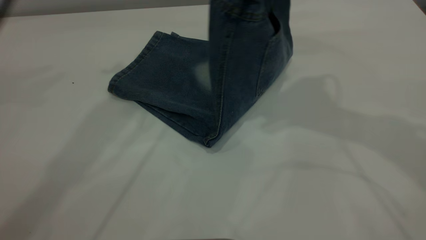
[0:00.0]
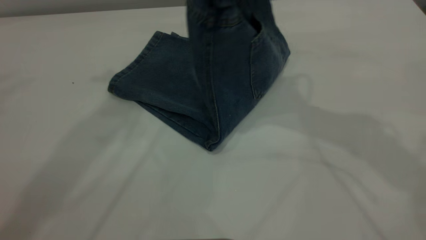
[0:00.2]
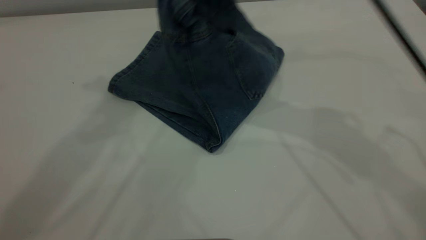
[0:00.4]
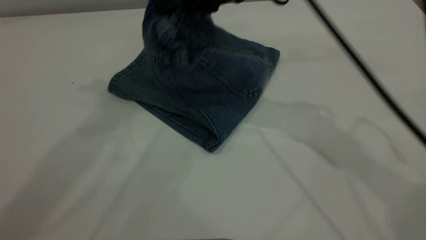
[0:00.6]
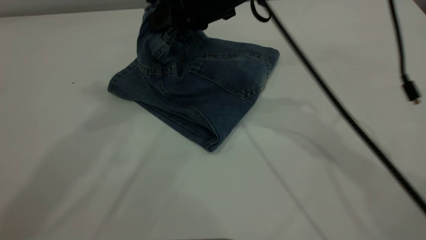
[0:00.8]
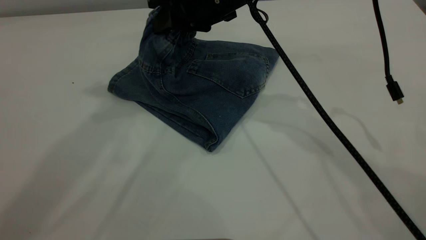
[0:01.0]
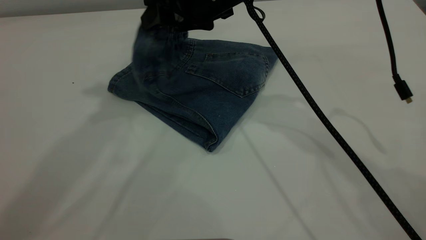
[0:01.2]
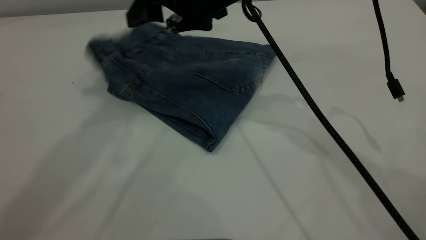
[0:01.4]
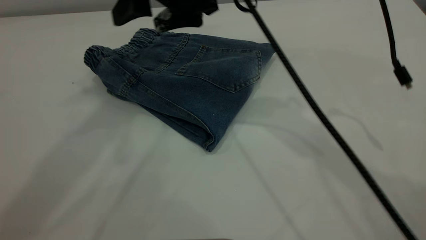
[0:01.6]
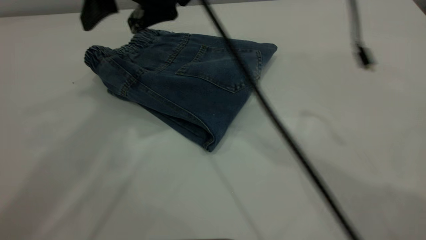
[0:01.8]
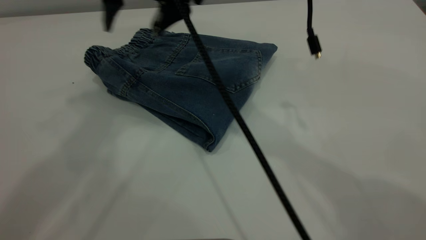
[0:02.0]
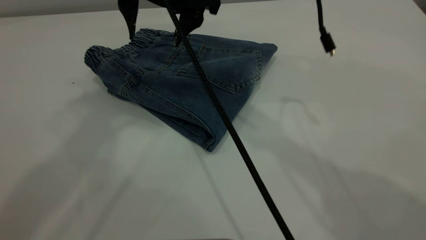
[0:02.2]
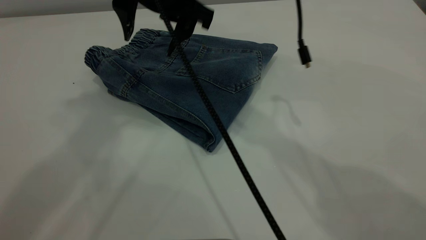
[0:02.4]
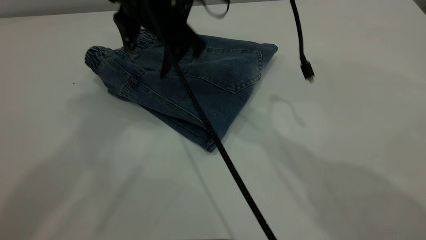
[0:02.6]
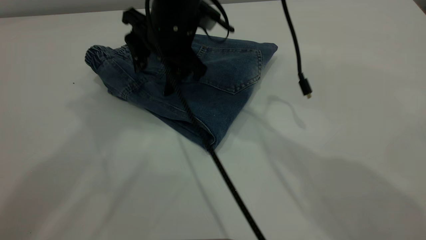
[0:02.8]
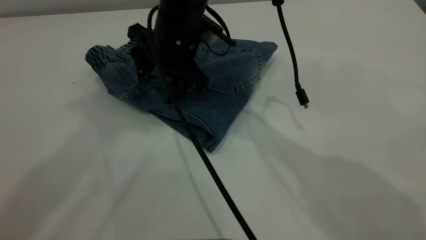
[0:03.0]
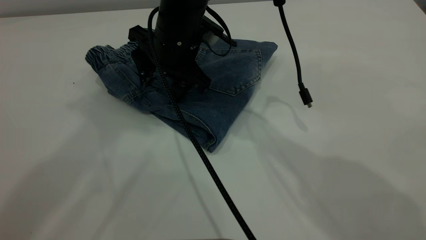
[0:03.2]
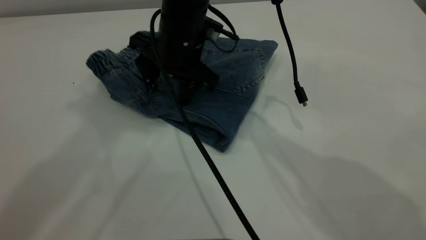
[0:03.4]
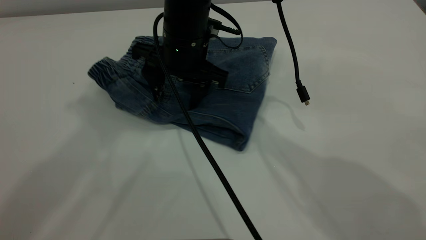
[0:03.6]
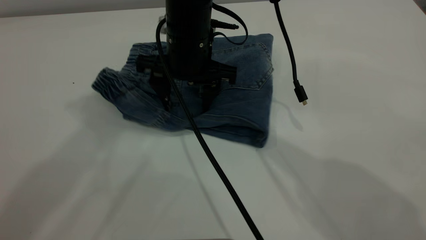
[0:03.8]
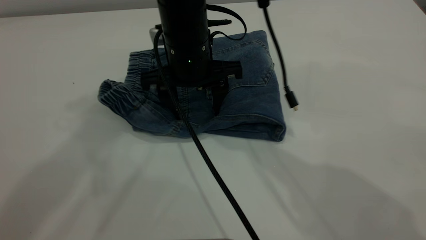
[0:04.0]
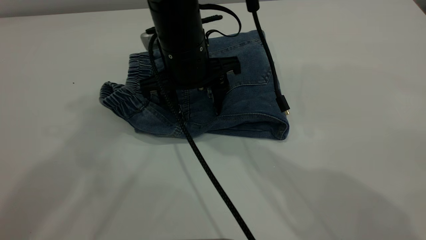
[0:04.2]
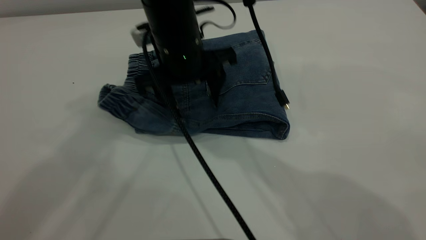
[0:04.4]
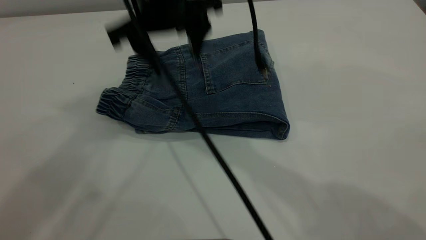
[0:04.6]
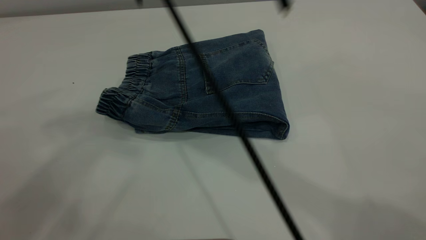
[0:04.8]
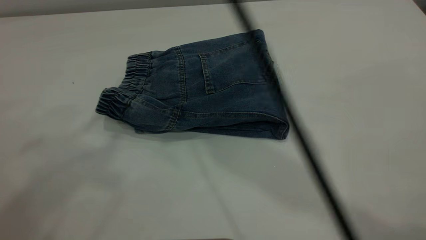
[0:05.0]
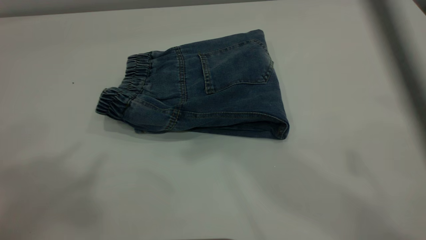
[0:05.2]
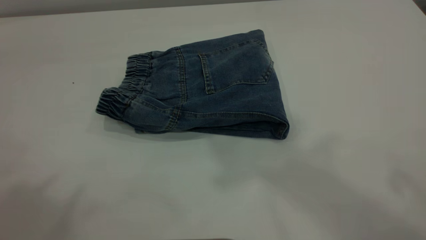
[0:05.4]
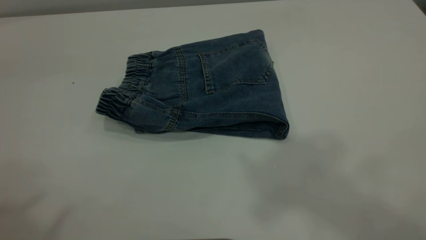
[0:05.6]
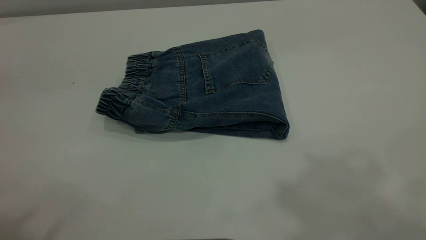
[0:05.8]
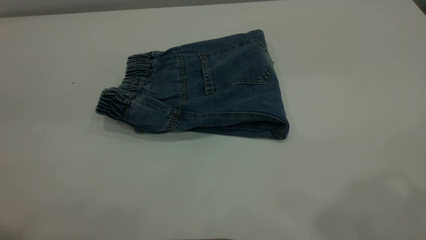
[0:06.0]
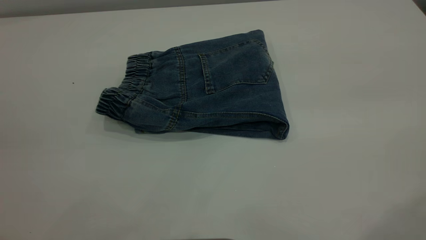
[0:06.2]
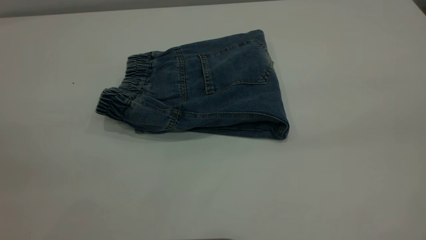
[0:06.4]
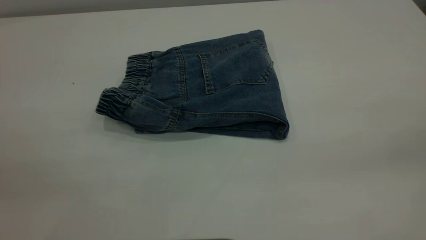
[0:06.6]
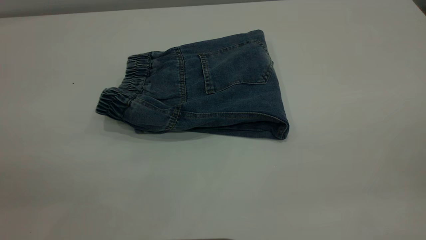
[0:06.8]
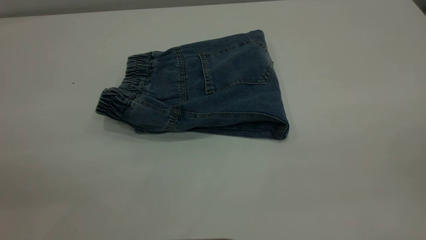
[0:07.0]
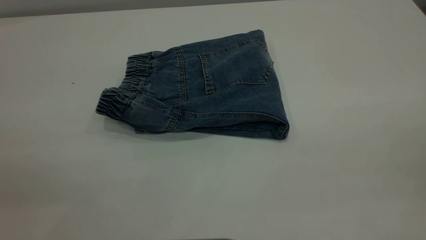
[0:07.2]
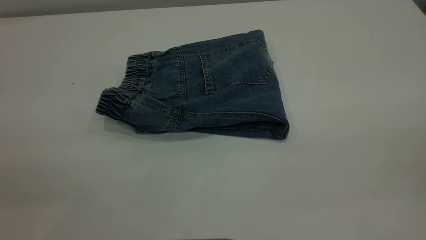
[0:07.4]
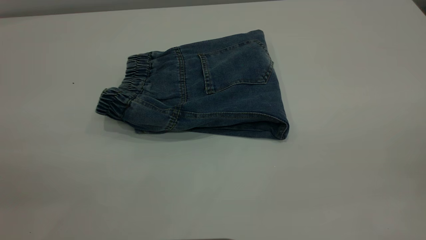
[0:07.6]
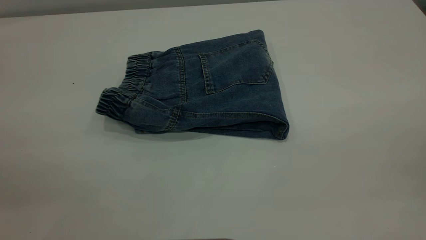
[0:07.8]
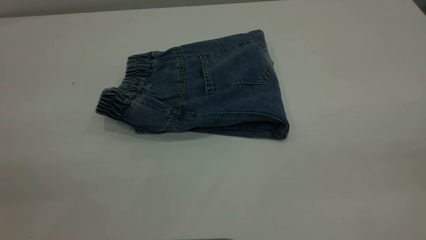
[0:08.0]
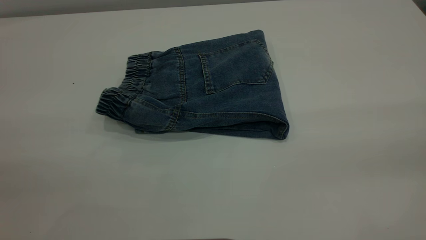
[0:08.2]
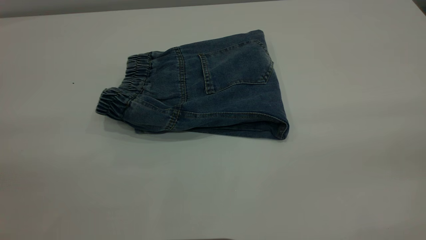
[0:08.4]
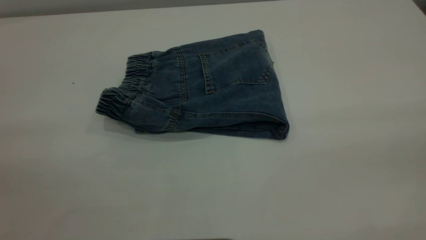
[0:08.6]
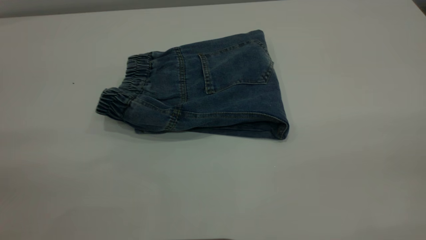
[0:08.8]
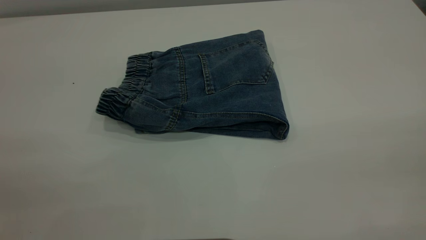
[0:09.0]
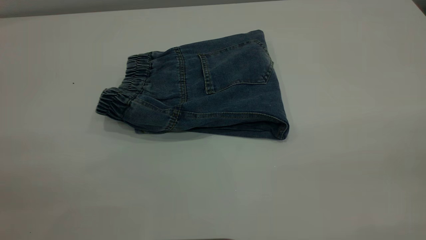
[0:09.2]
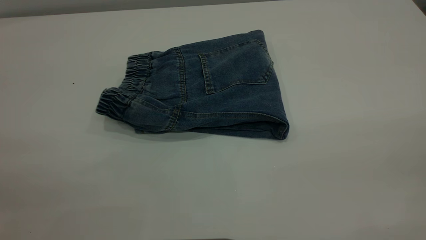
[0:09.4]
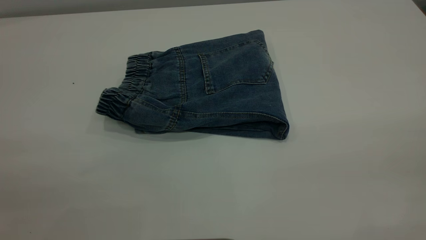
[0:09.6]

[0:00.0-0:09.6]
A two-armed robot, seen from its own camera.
Step, 0:00.0 to 0:02.0: Fold your pants from right to left.
0:00.0 to 0:01.6: The right gripper travels to the left and downward by some 15 cm, and opens up; the left gripper is displaced upward and backward by about 10 cm.
0:01.6 to 0:03.2: The left gripper changes place by roughly 5 cm. Meanwhile the right gripper moves downward, roughly 10 cm.
0:03.2 to 0:04.8: The right gripper goes roughly 20 cm upward. The left gripper moves backward, some 5 cm.
0:04.8 to 0:06.4: The right gripper travels to the right and backward by approximately 40 cm; the left gripper moves downward and backward, about 25 cm.

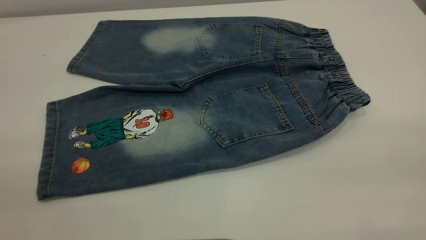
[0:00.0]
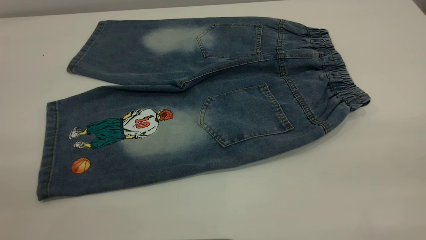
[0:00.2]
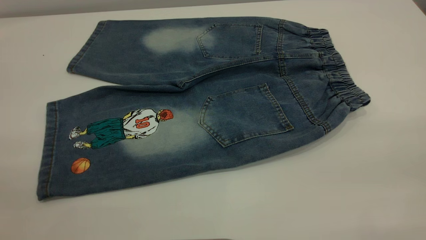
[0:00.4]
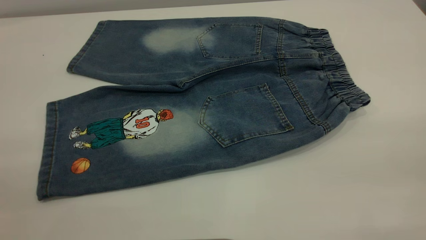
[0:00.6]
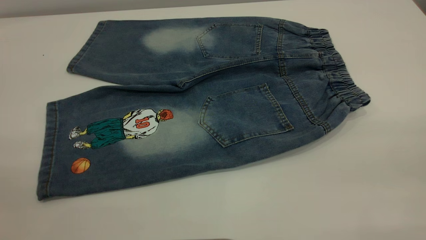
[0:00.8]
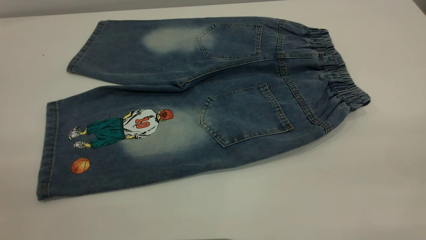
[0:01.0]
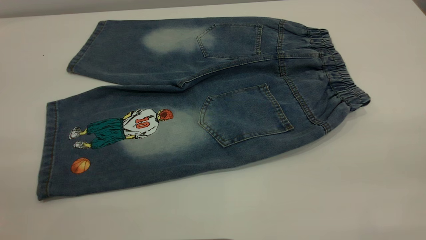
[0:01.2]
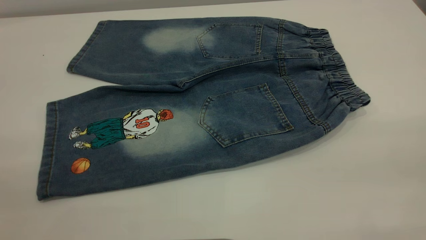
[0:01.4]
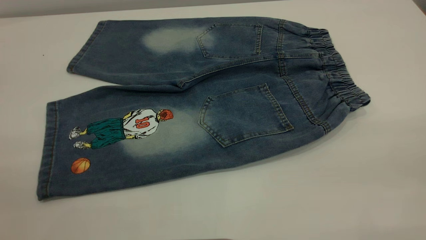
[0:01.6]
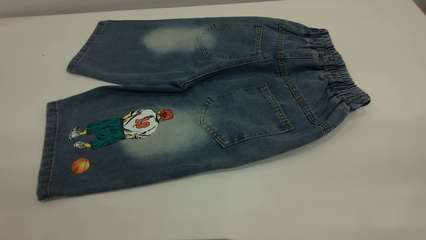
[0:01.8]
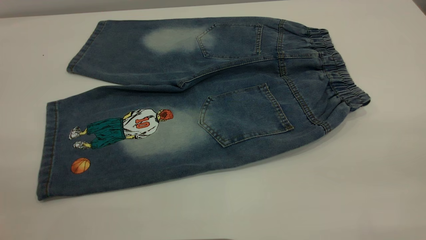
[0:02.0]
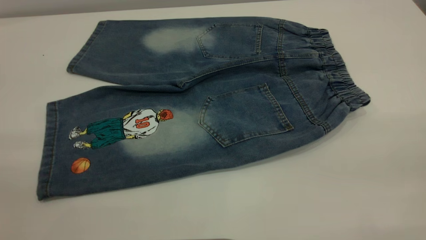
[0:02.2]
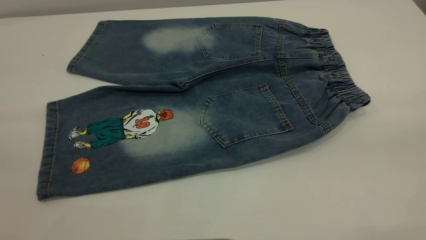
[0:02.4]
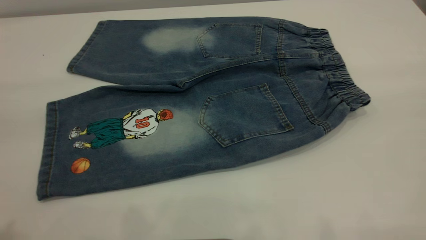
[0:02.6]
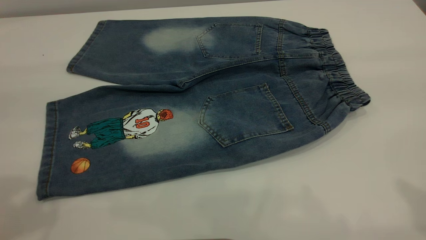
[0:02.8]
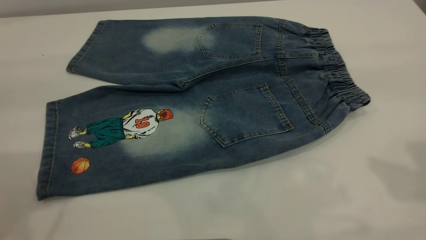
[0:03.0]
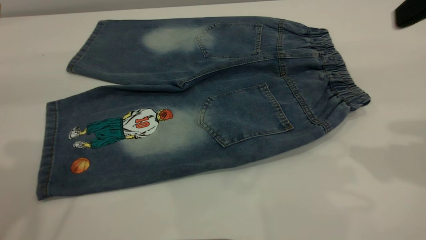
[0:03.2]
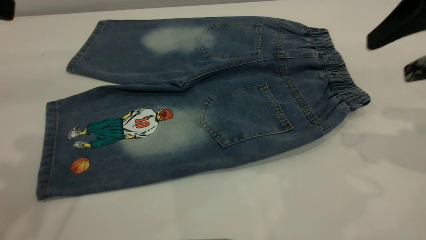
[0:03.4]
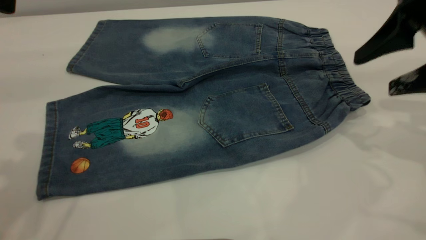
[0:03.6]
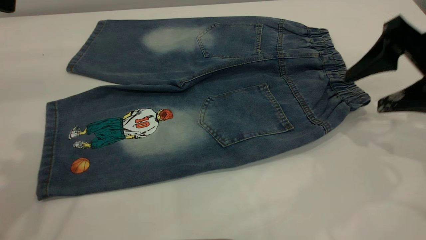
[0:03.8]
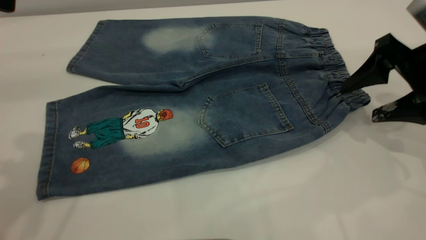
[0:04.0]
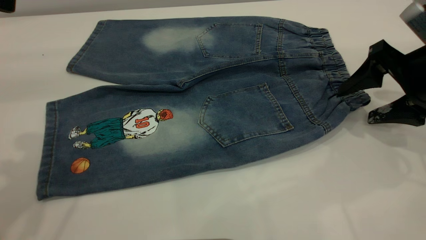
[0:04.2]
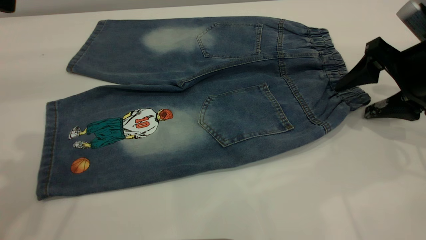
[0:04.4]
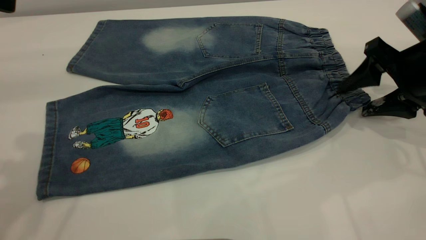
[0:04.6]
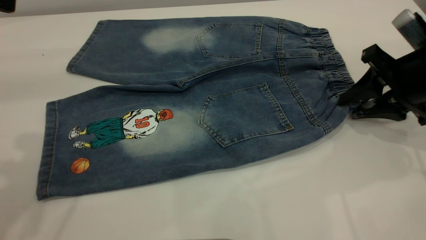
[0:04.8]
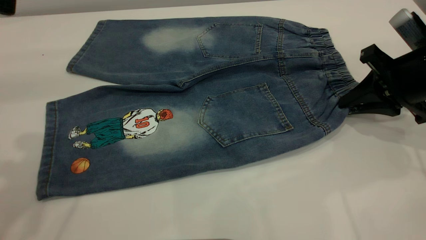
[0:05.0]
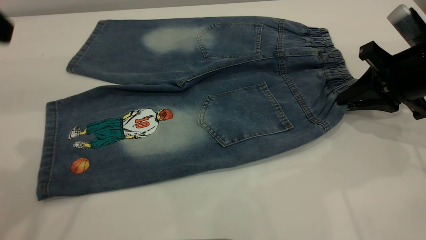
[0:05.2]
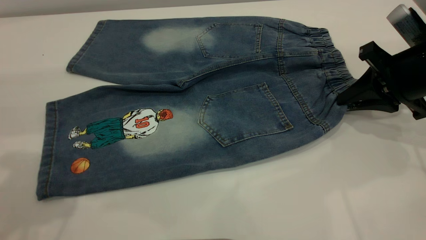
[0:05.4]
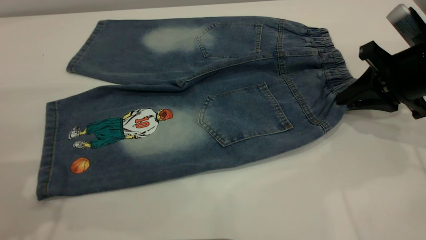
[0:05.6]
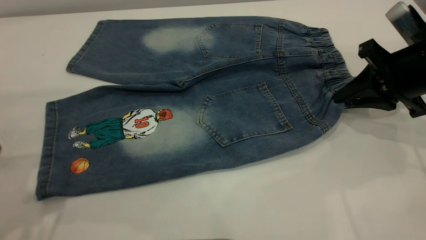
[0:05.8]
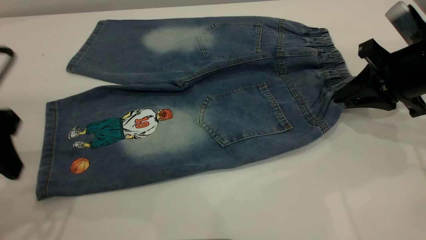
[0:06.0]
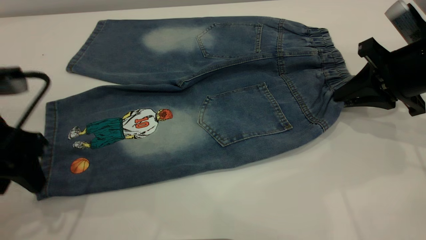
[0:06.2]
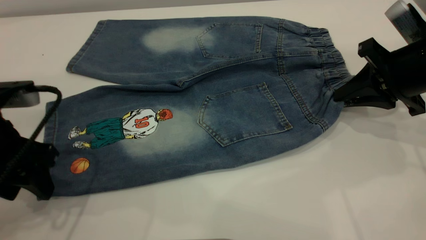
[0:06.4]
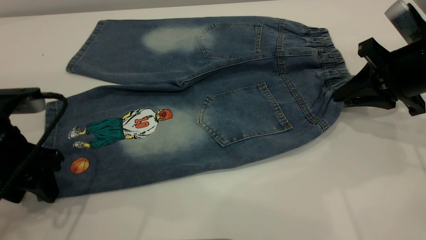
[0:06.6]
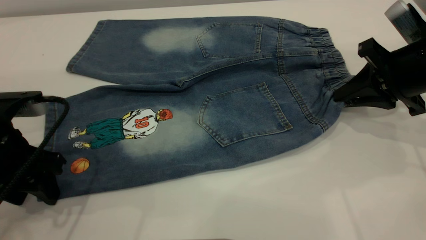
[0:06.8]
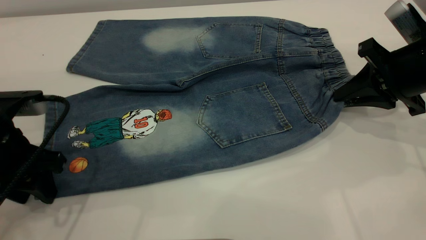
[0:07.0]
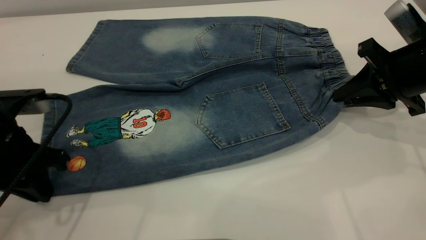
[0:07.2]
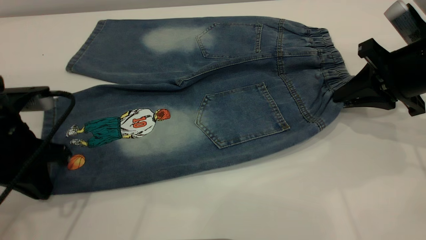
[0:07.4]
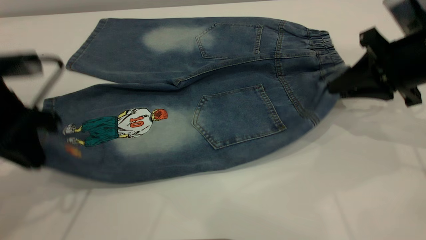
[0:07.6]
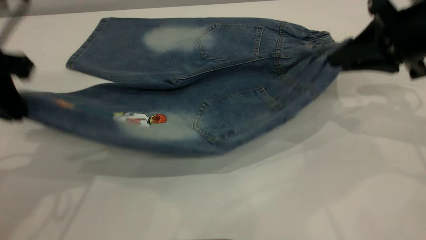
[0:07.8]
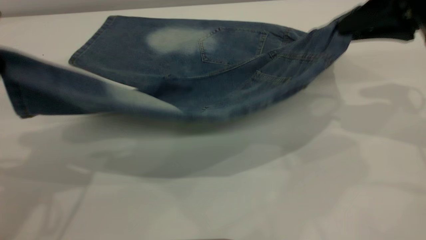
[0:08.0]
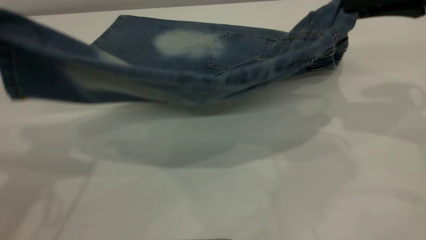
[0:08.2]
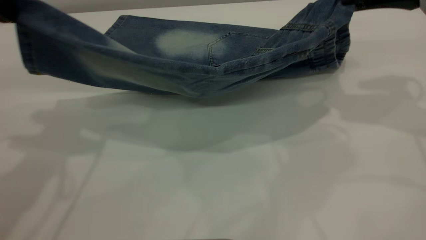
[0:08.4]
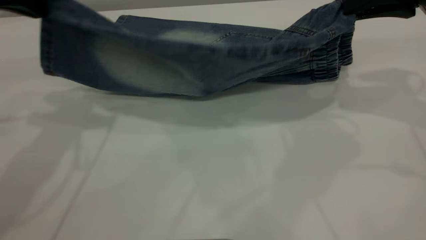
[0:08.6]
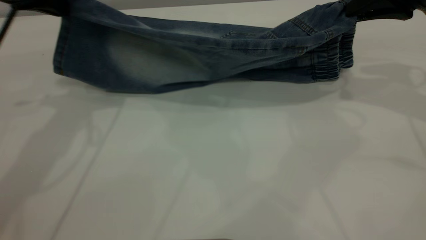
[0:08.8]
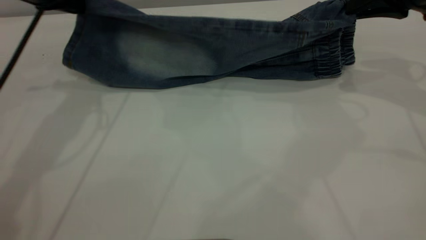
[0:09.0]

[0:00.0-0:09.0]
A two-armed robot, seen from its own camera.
0:00.0 to 0:01.6: Both grippers stay about where they are.
0:03.0 to 0:04.4: The right gripper moves downward and forward, about 20 cm.
0:04.4 to 0:06.0: The right gripper closes up. Meanwhile the left gripper heads downward, covering some 15 cm.
0:06.0 to 0:07.6: The left gripper closes up.
0:07.6 to 0:09.0: The left gripper is displaced forward by some 15 cm, while the right gripper is displaced forward and upward by roughly 10 cm.
